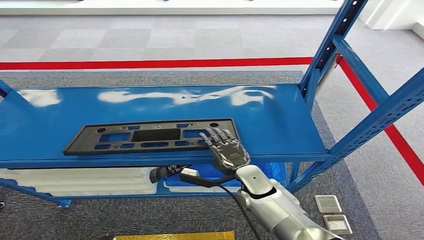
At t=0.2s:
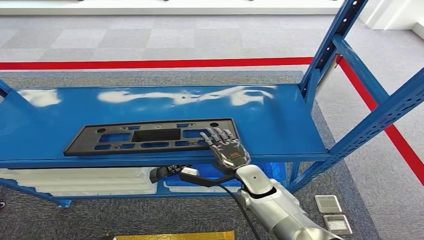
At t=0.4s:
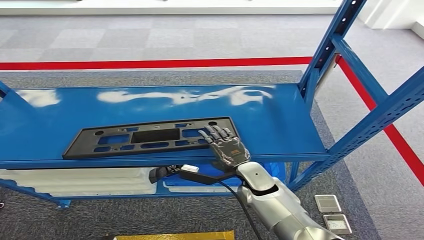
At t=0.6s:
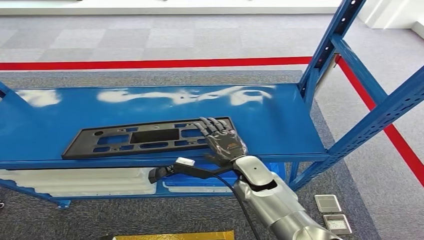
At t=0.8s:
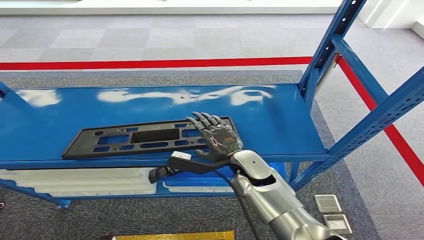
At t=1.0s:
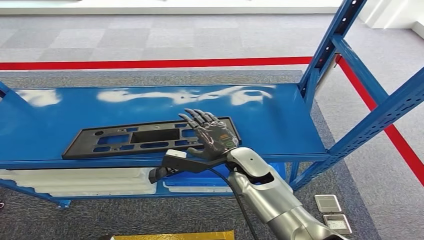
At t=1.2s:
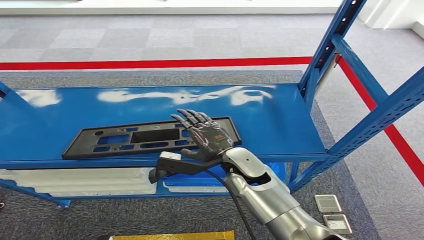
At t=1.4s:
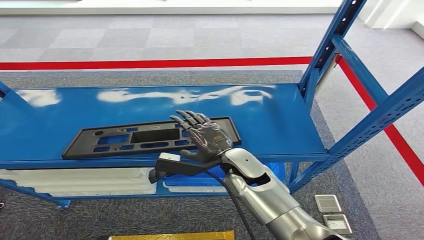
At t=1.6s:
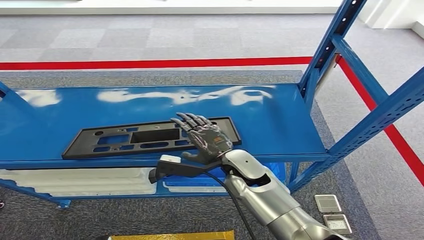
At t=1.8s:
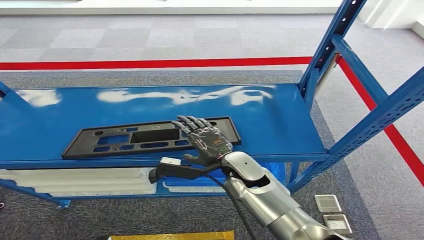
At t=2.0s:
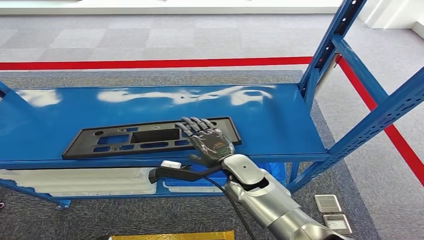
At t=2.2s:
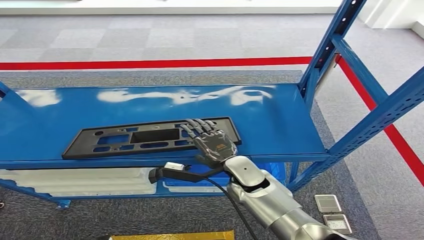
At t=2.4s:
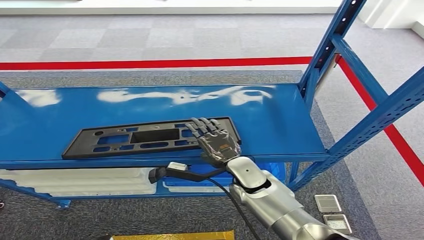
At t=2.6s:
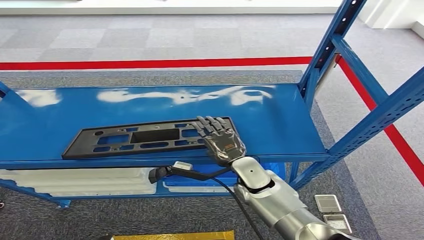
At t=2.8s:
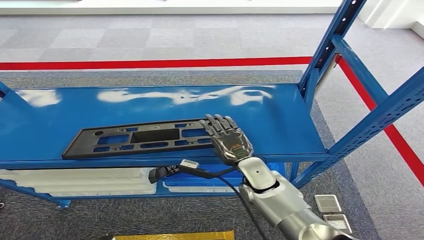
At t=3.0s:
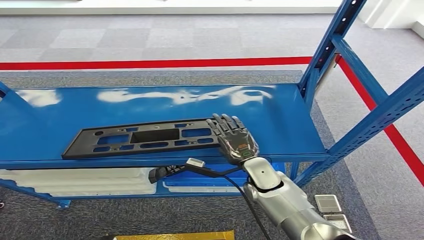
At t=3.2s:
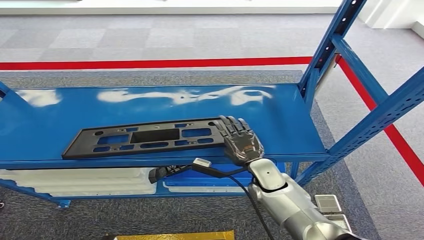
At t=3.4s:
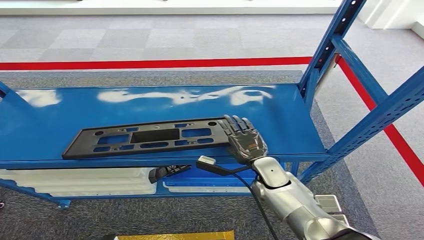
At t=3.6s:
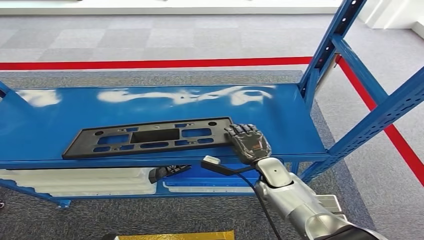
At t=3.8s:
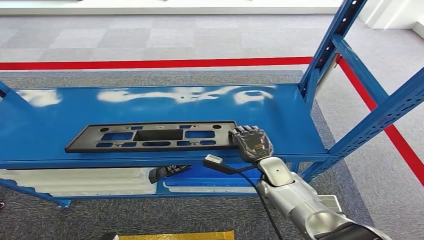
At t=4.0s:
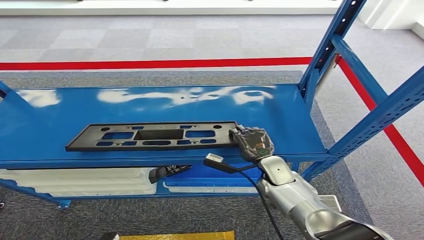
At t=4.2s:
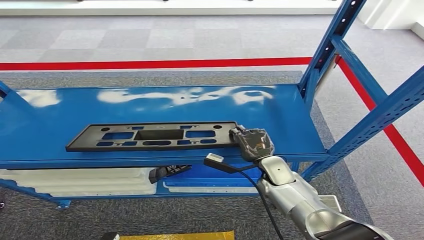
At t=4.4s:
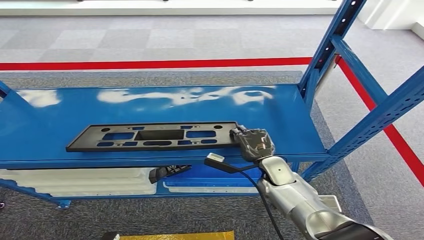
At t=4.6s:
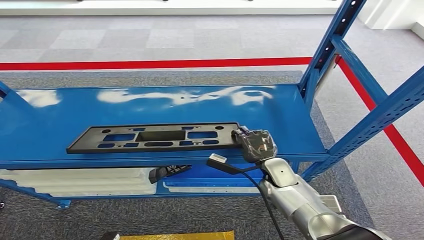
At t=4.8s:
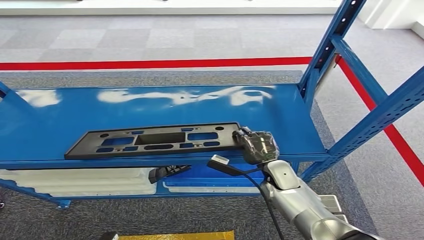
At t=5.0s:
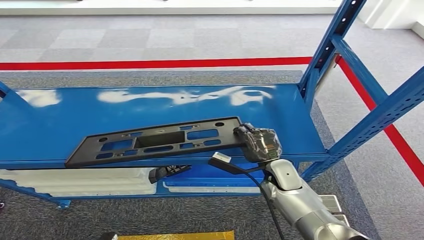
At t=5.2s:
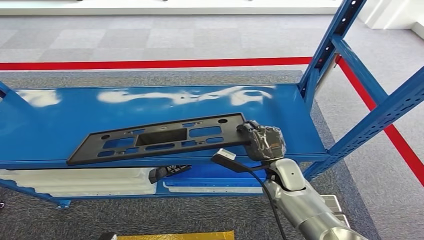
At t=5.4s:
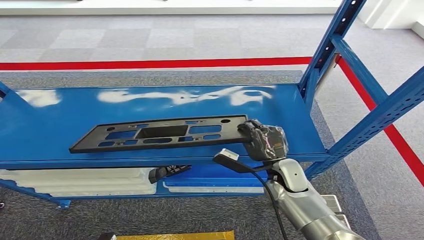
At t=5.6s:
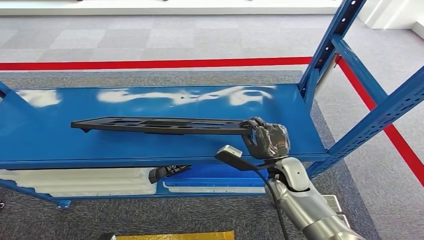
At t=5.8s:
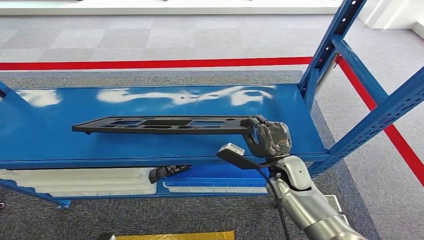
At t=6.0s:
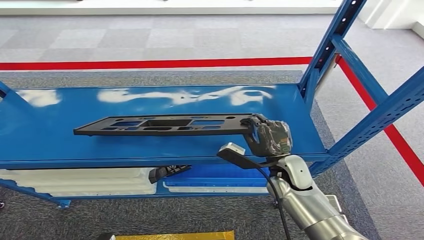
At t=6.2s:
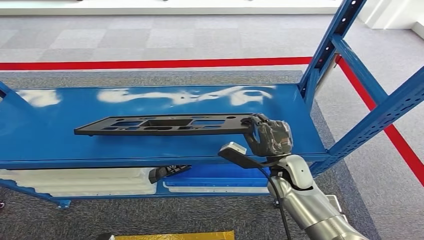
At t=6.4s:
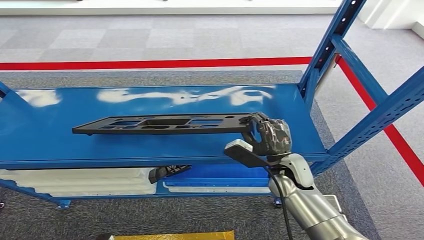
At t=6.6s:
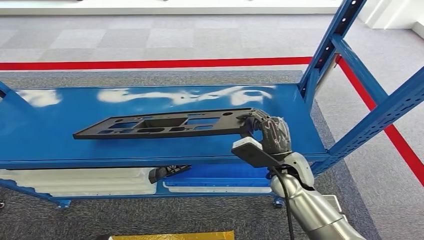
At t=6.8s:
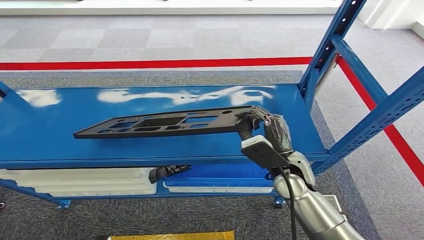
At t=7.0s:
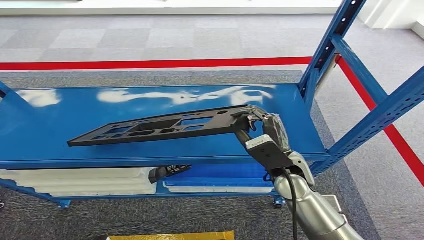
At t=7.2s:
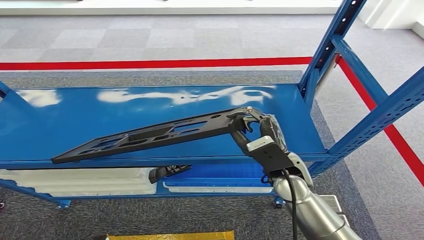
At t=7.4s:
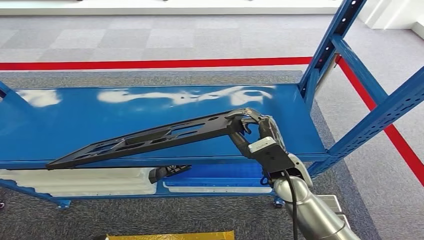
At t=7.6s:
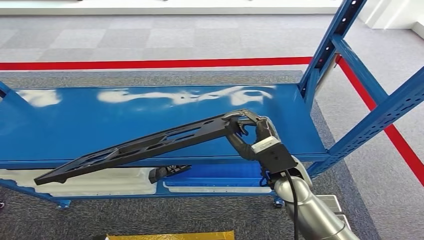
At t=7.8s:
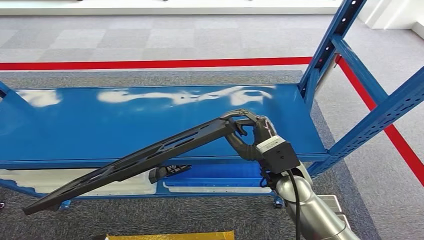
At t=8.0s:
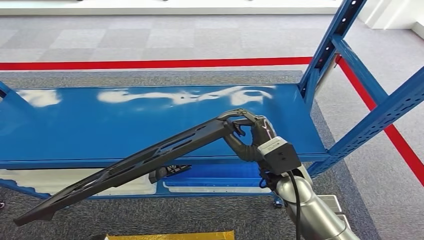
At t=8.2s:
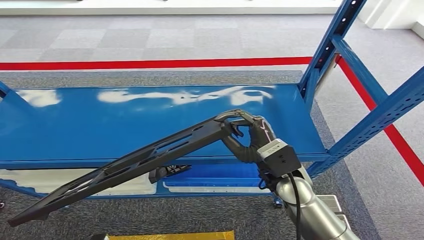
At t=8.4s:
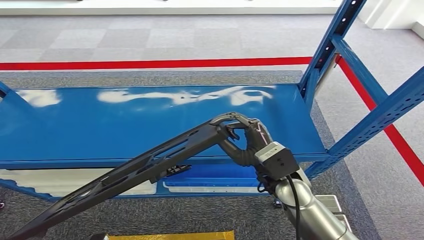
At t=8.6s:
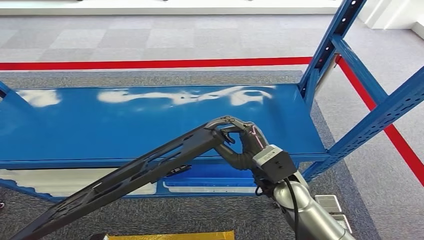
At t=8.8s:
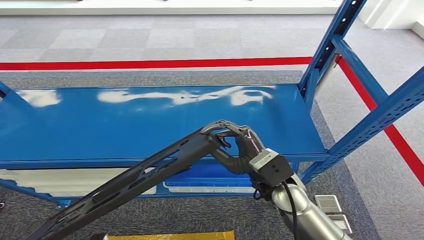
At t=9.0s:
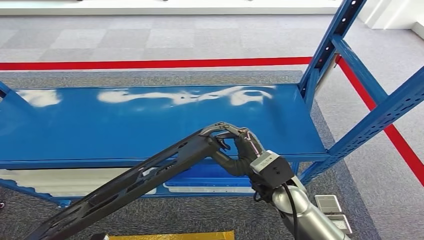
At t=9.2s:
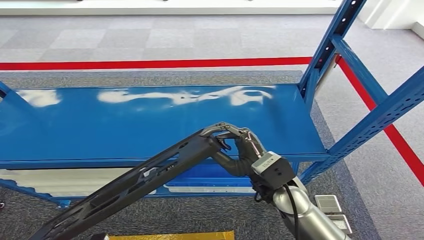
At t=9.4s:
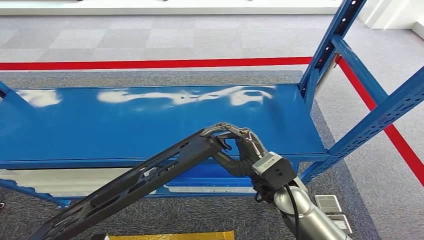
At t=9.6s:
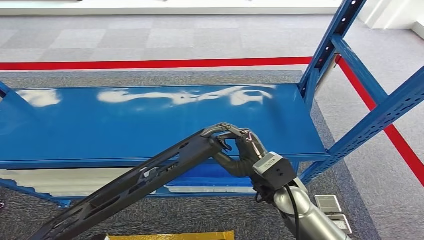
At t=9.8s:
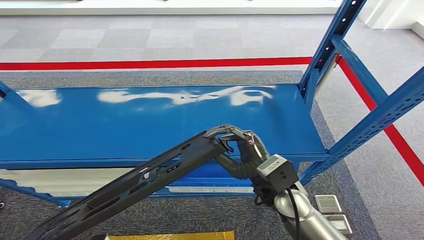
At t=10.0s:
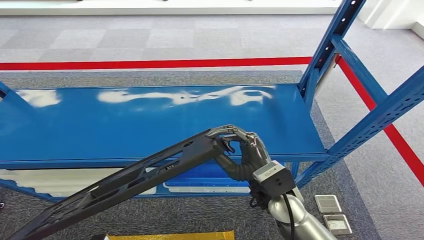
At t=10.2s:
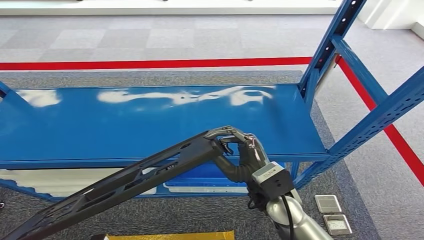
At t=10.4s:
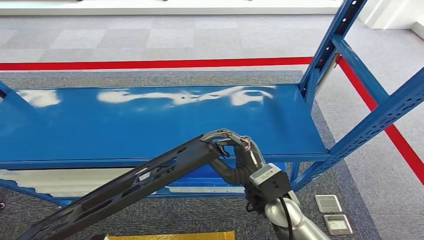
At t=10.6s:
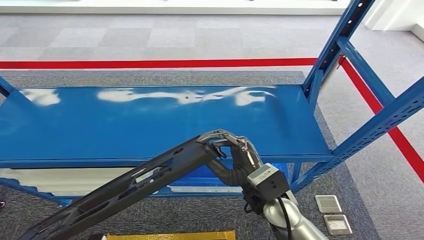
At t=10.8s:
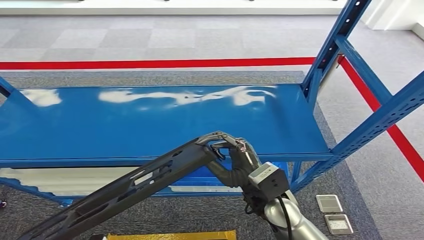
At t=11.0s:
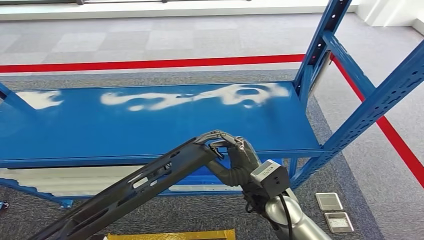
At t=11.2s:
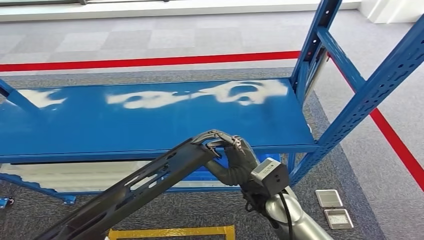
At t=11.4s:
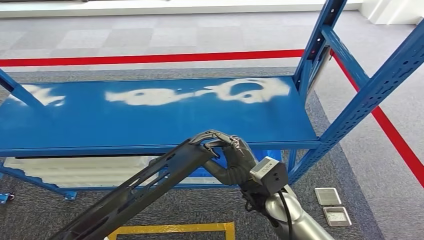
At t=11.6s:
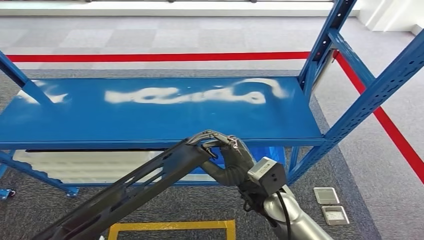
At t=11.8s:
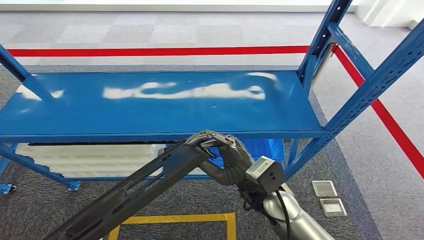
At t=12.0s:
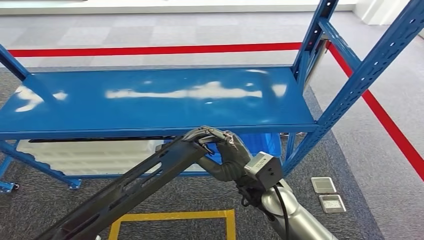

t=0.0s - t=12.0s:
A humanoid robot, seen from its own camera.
Step, t=0.0s - t=8.8s: Pick up the large material from the shelf.
t=0.0s - t=1.6s: The right hand heads upward, covering about 10 cm.
t=1.6s - t=3.0s: The right hand goes approximately 5 cm downward and to the right.
t=3.0s - t=4.4s: The right hand changes place by roughly 5 cm.
t=4.4s - t=6.0s: The right hand travels upward by some 5 cm.
t=6.0s - t=7.6s: The right hand moves upward, about 5 cm.
t=7.6s - t=9.0s: The hands stay close to where they were, moving slightly.
t=9.0s - t=10.4s: The hands stay close to where they were, moving slightly.

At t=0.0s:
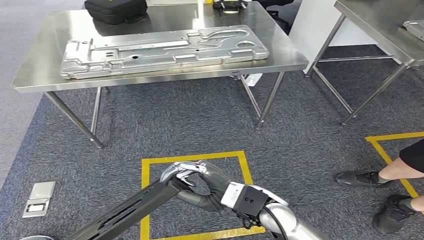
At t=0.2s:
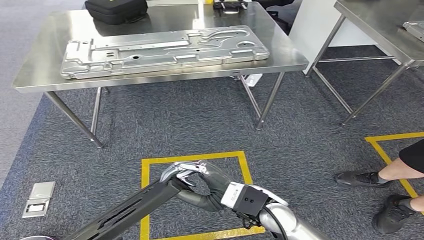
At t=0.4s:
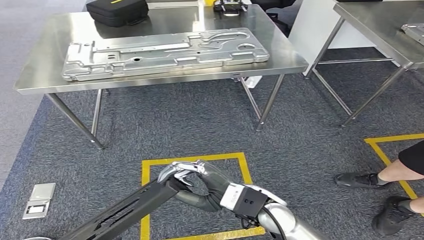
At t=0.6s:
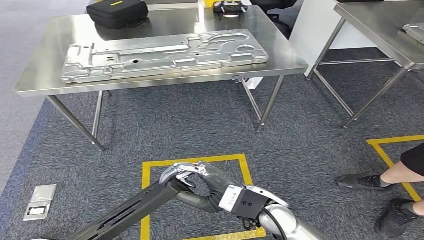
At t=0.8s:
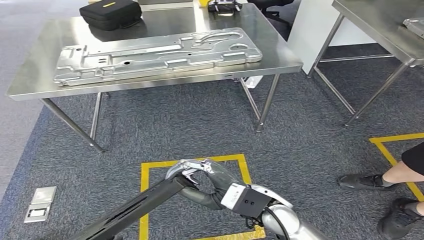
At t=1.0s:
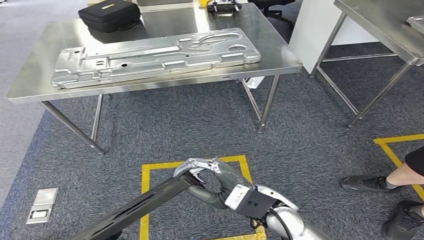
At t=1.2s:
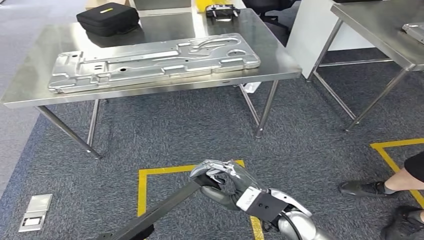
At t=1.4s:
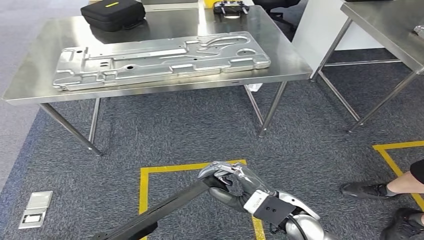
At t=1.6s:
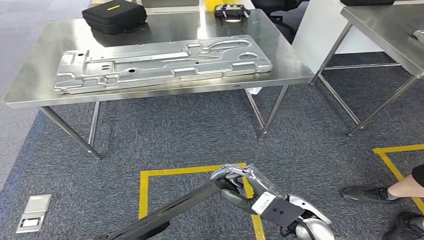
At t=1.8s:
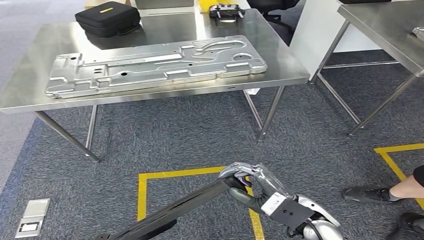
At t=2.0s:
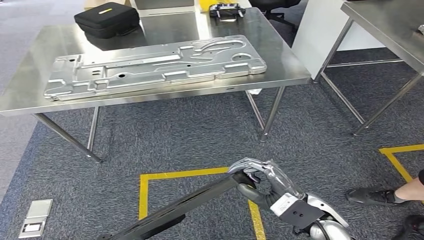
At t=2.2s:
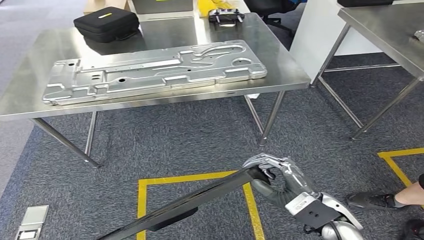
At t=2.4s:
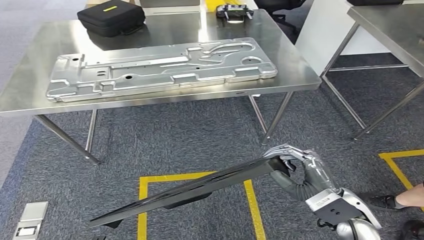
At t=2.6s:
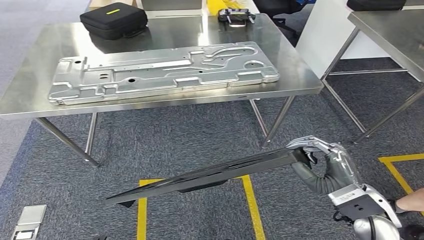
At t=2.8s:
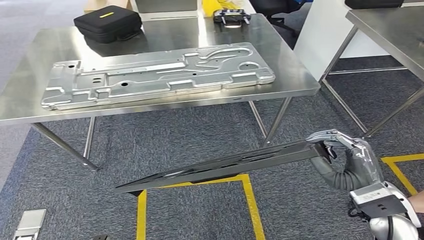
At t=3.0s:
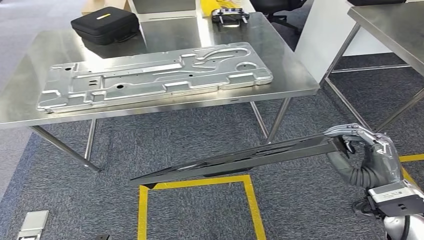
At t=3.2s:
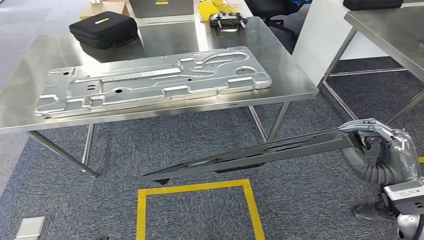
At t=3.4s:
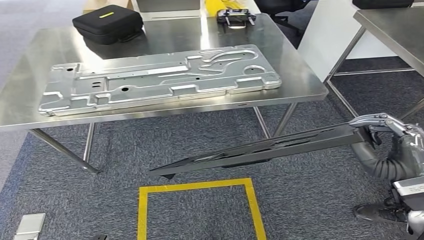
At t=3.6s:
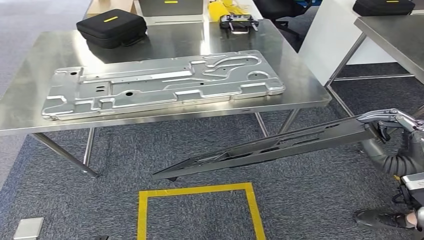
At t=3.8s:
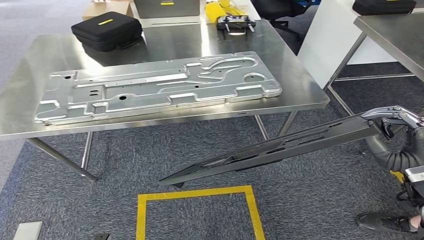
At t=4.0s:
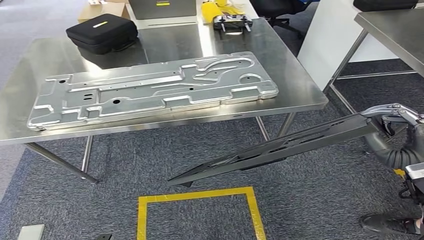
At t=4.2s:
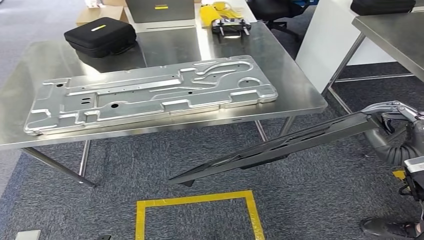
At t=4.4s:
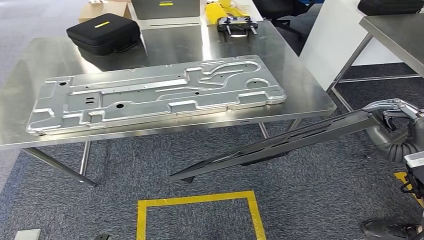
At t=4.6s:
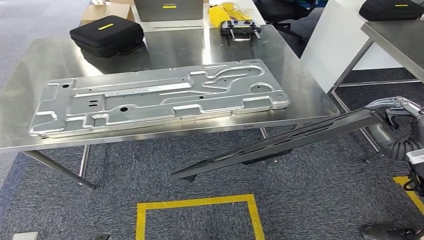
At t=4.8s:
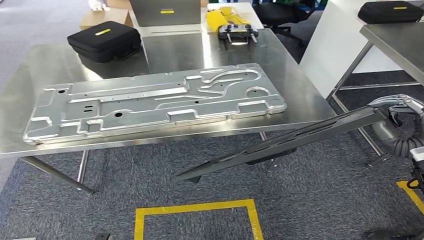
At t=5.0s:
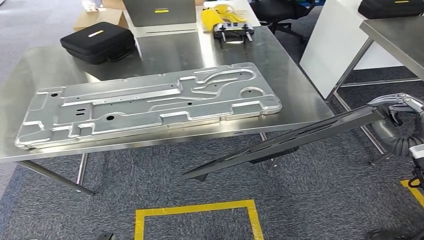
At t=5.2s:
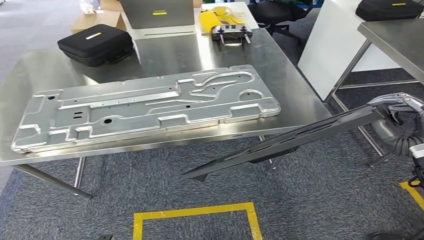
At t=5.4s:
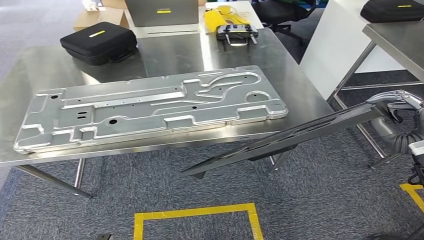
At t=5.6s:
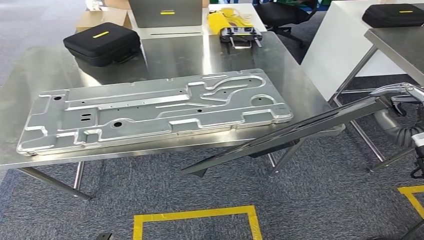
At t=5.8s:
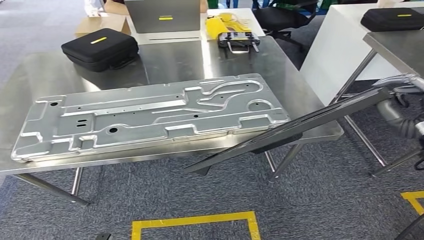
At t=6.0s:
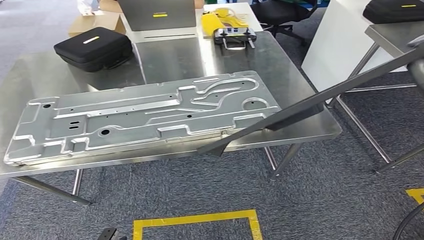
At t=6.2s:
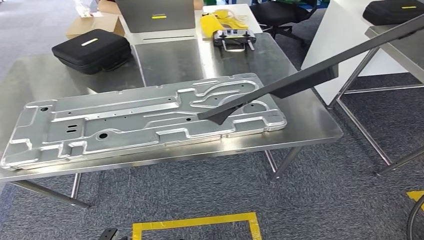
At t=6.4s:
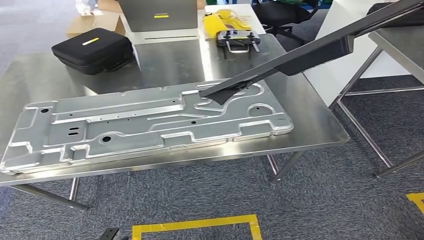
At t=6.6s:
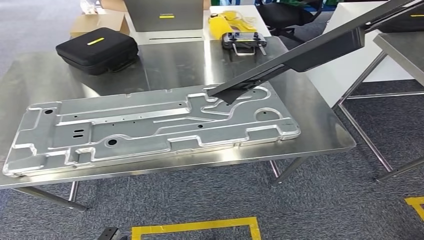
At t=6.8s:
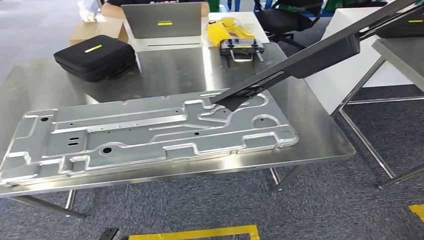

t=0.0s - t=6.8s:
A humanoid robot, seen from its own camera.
Step, t=0.0s - t=6.2s: Move the large material to the workbench.
